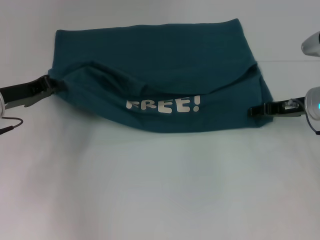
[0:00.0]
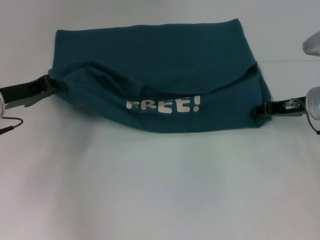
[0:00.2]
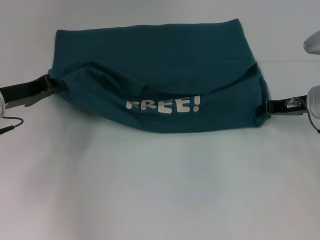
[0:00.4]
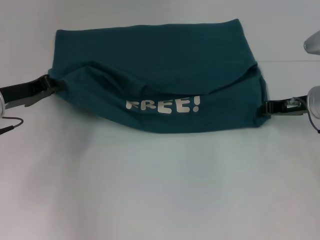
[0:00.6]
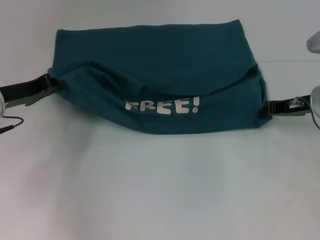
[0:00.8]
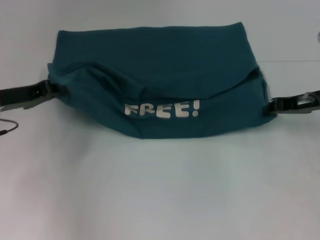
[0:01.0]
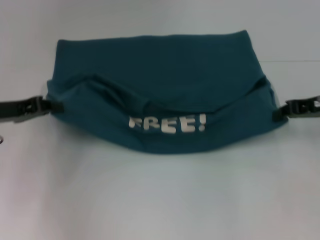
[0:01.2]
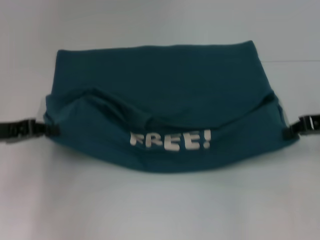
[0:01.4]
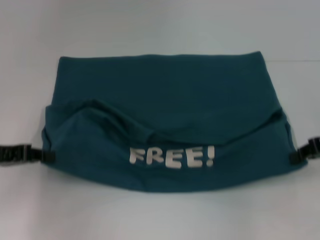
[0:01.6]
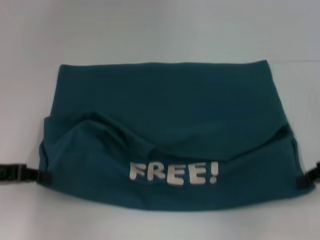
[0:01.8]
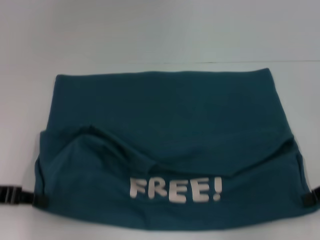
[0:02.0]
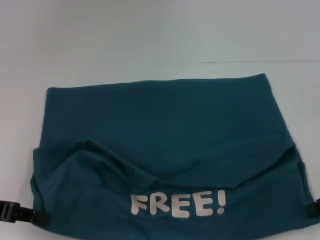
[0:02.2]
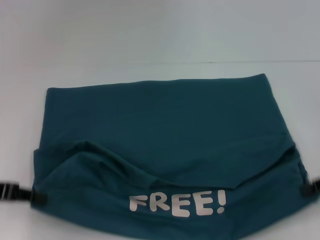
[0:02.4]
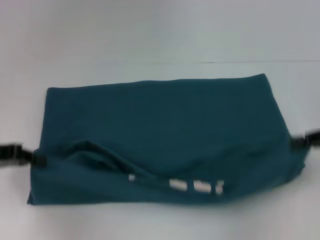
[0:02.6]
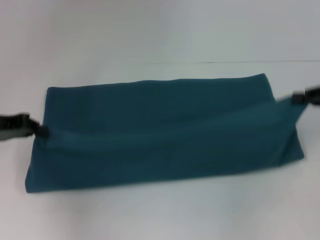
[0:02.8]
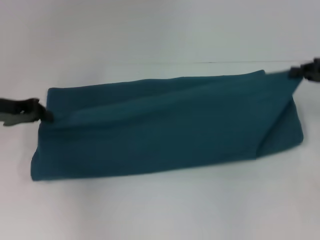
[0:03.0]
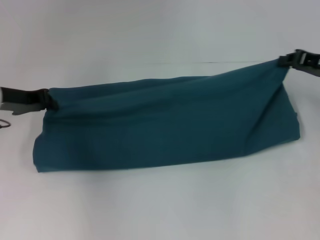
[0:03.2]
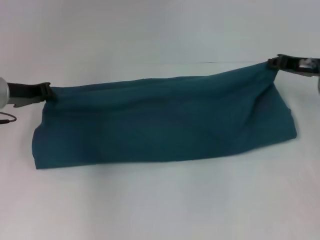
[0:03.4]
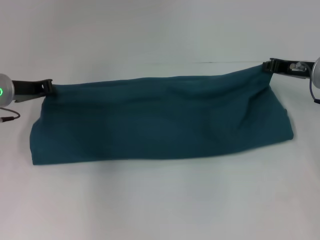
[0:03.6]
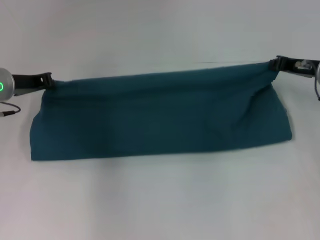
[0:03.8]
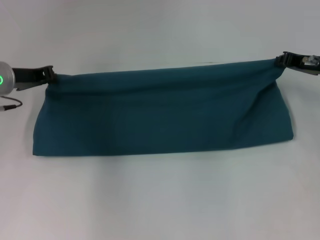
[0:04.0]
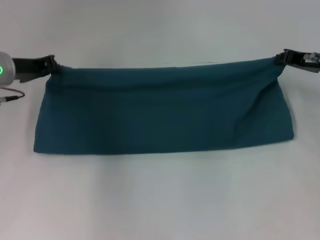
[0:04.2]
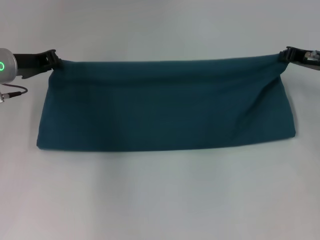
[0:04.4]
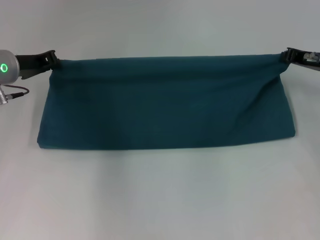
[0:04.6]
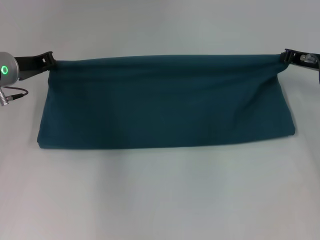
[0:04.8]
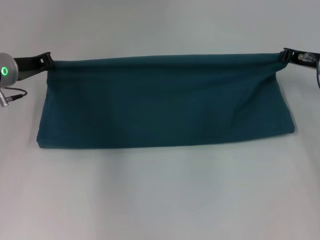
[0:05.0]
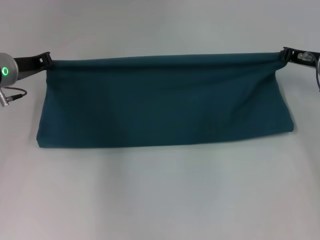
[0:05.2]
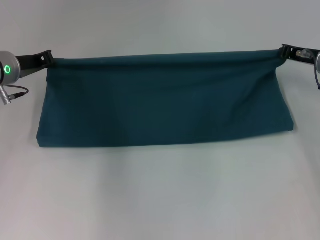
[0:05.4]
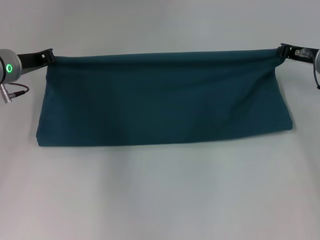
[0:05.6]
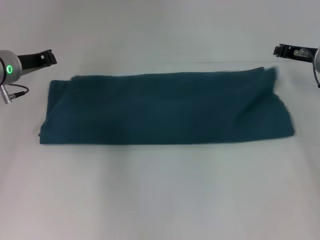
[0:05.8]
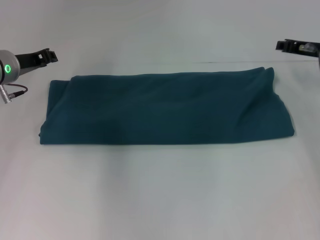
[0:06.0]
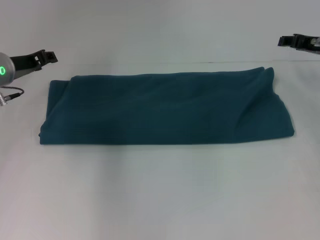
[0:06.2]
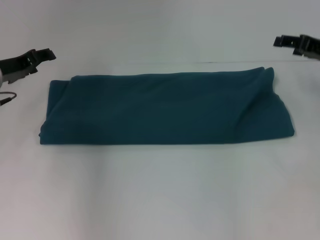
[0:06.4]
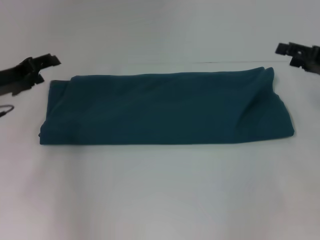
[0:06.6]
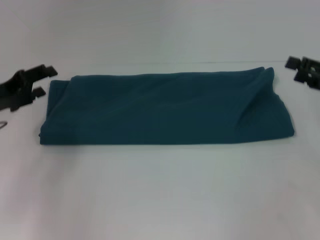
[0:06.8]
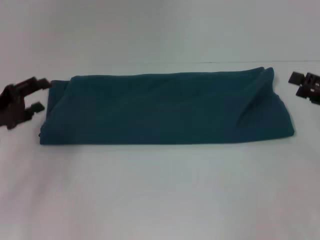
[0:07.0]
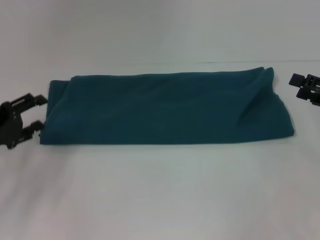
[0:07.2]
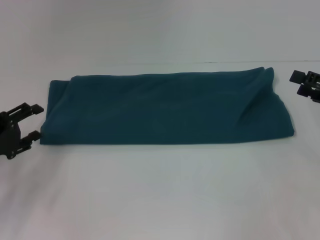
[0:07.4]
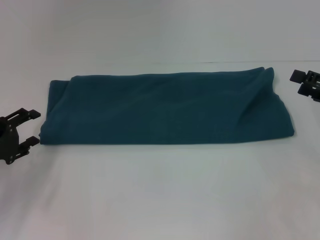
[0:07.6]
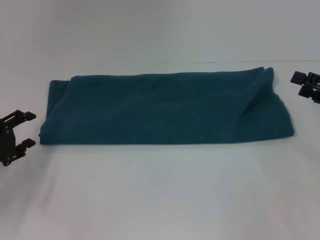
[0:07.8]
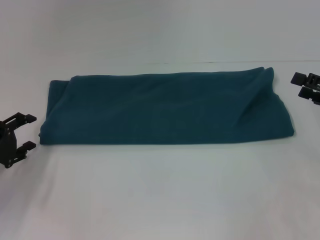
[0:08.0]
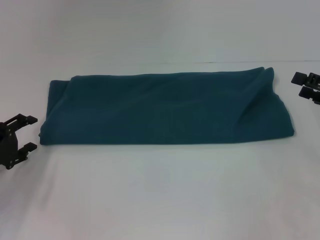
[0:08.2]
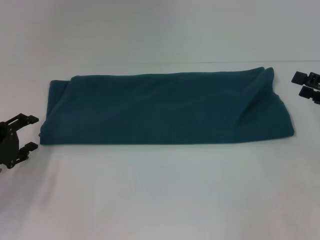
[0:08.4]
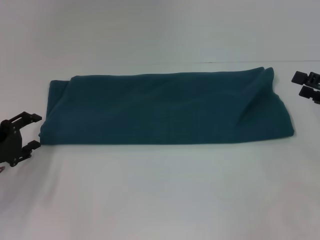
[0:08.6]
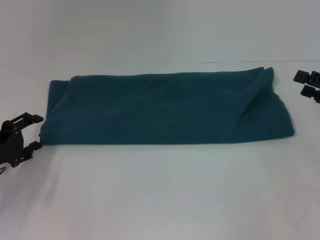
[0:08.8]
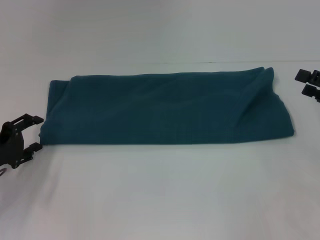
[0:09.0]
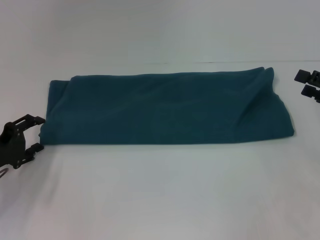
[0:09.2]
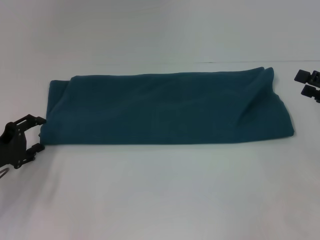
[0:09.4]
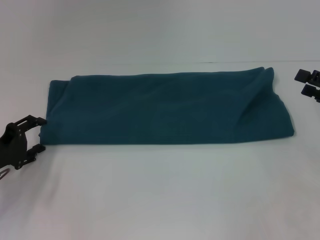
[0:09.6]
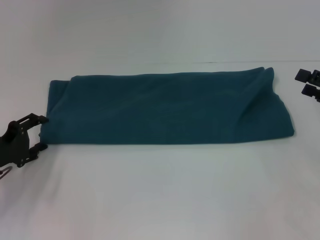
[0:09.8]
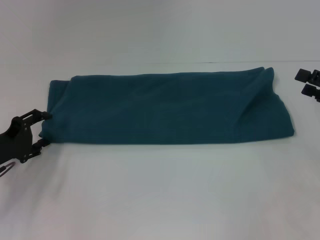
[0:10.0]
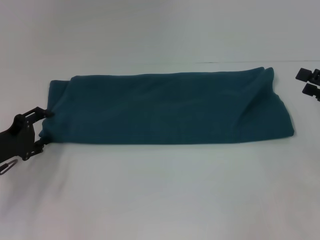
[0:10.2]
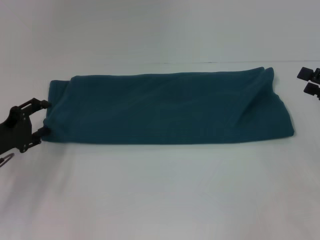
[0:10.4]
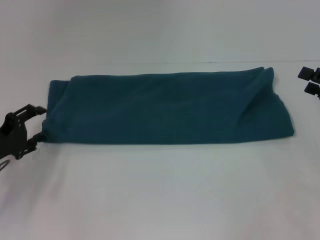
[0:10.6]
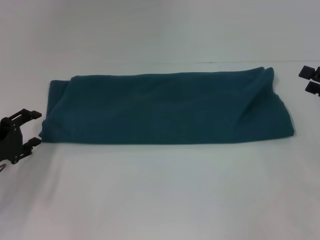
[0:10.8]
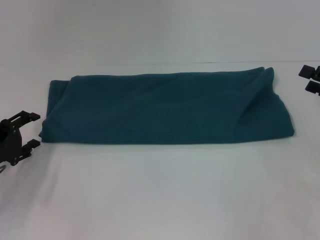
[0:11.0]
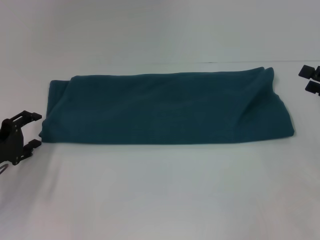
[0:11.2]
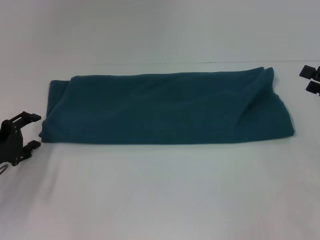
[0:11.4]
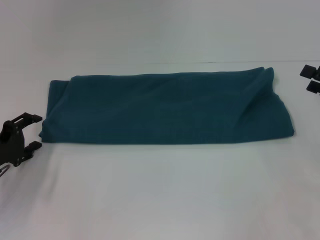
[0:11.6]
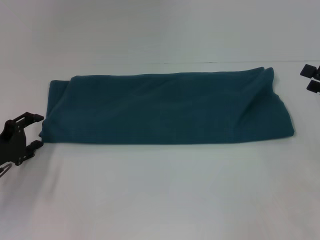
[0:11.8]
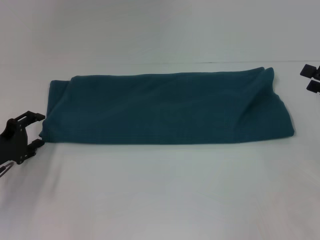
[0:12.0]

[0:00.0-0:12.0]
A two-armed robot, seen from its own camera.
Step, 0:00.0 to 0:02.0: Pull the clothes with your left hand.
Step, 0:00.0 to 0:02.0: Pull the clothes with your right hand.
Step, 0:02.2 to 0:06.0: Fold the clothes to the right.
0:00.0 to 0:01.6: The right gripper is displaced backward and to the right by roughly 10 cm, and closes up. Meanwhile the left gripper is displaced backward by roughly 10 cm.
0:01.6 to 0:03.0: The left gripper heads forward, covering about 5 cm.
0:03.0 to 0:04.4: Both grippers move forward, approximately 5 cm.
0:04.4 to 0:06.0: The grippers make only small movements.
0:06.0 to 0:07.6: The right gripper shifts about 15 cm backward and to the right, and opens its fingers; the left gripper is displaced backward, downward and to the left by about 20 cm, and opens.
0:07.6 to 0:12.0: The grippers stay close to where they were, moving slightly.

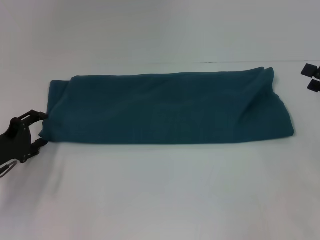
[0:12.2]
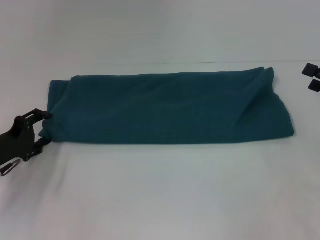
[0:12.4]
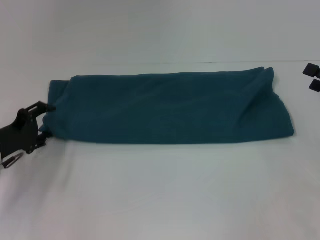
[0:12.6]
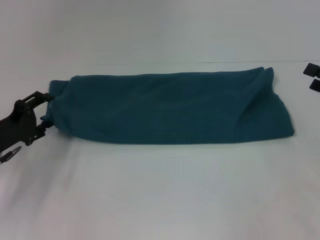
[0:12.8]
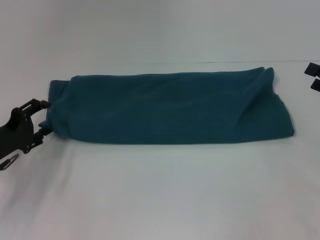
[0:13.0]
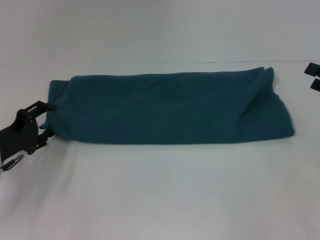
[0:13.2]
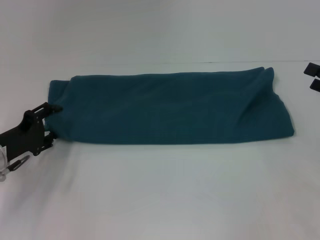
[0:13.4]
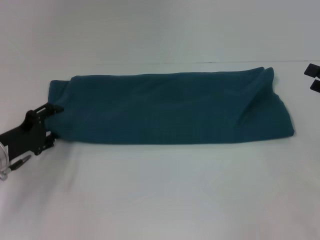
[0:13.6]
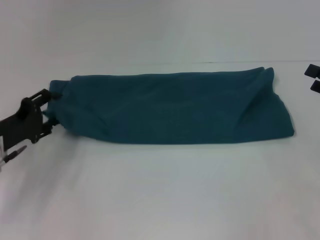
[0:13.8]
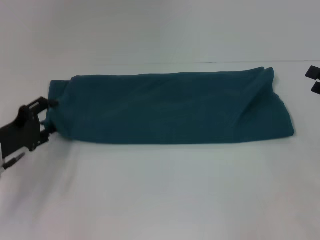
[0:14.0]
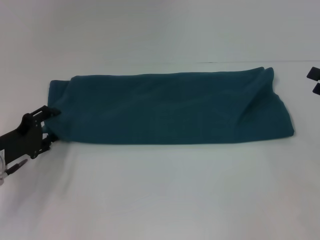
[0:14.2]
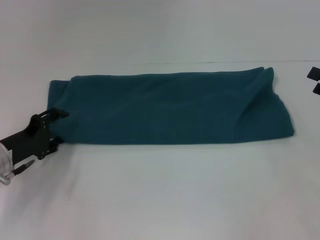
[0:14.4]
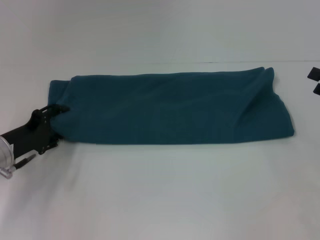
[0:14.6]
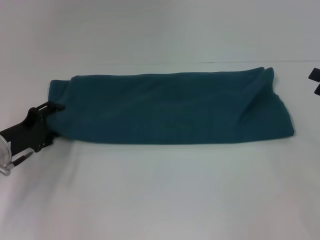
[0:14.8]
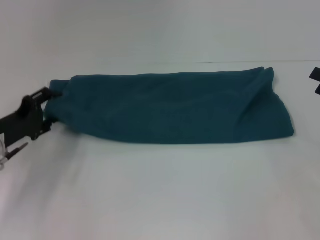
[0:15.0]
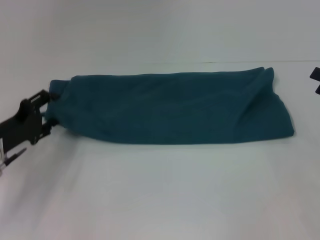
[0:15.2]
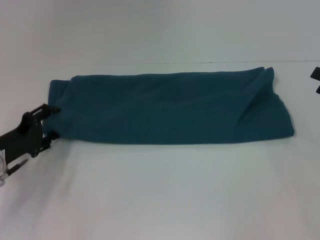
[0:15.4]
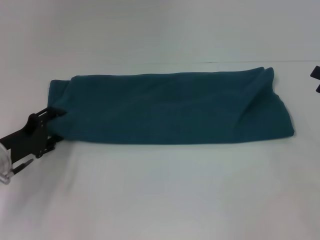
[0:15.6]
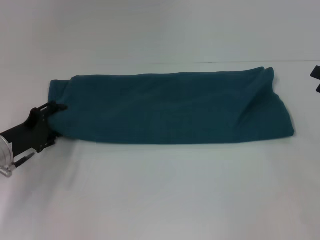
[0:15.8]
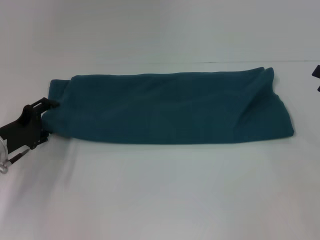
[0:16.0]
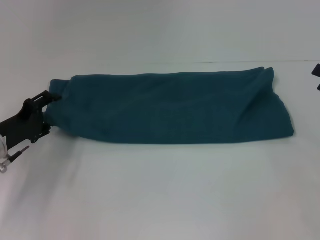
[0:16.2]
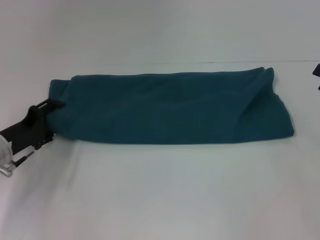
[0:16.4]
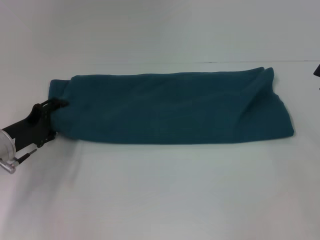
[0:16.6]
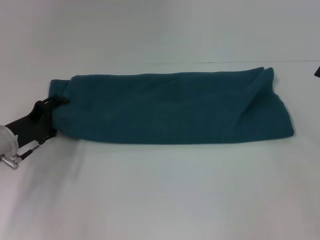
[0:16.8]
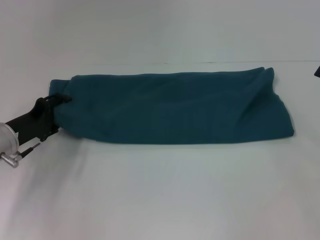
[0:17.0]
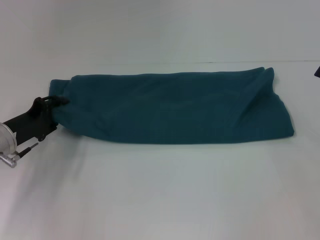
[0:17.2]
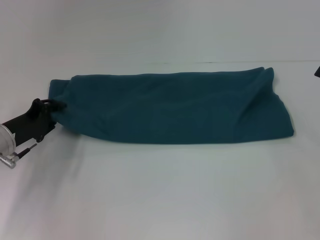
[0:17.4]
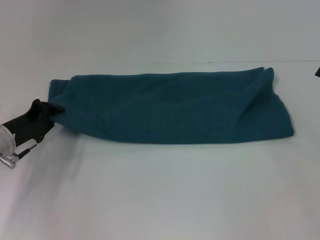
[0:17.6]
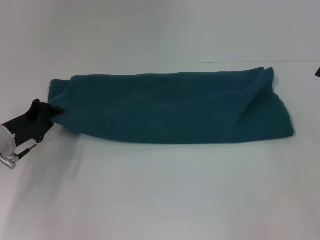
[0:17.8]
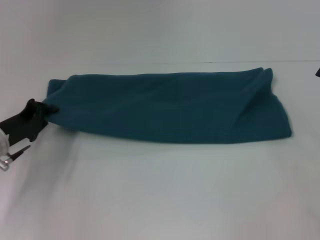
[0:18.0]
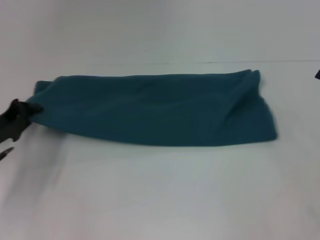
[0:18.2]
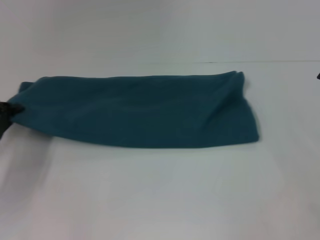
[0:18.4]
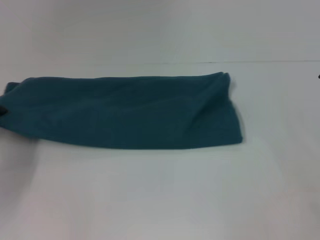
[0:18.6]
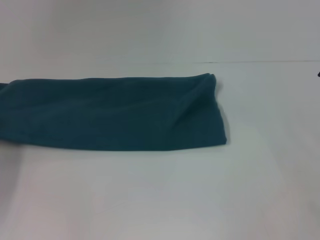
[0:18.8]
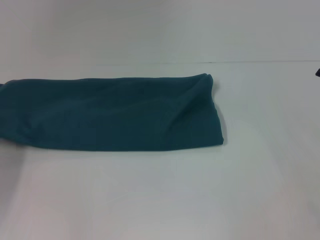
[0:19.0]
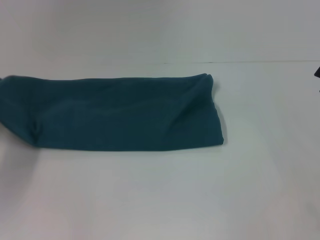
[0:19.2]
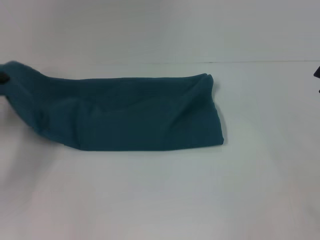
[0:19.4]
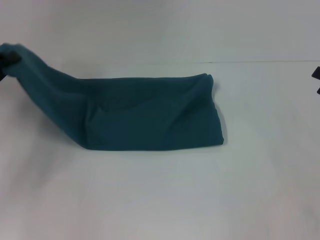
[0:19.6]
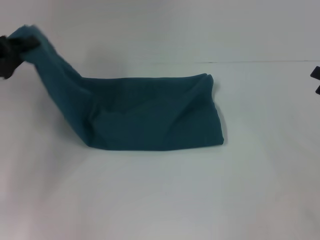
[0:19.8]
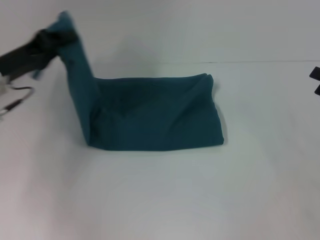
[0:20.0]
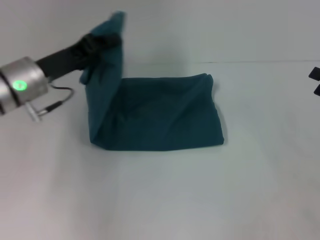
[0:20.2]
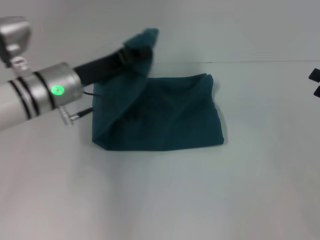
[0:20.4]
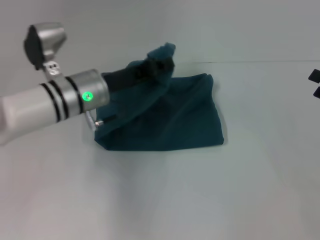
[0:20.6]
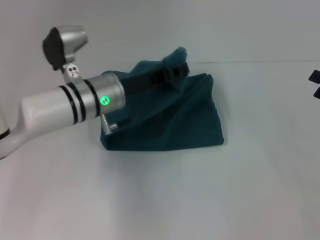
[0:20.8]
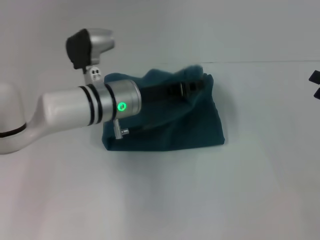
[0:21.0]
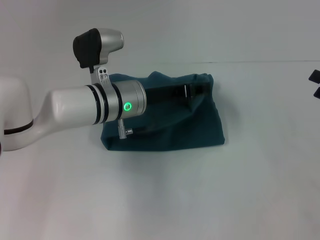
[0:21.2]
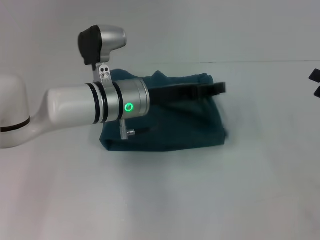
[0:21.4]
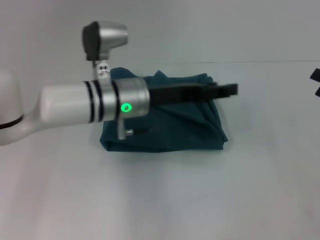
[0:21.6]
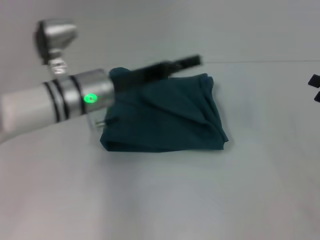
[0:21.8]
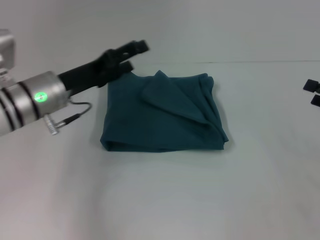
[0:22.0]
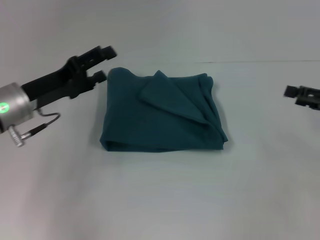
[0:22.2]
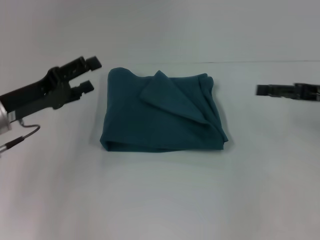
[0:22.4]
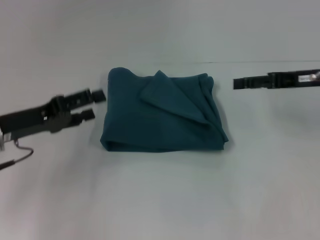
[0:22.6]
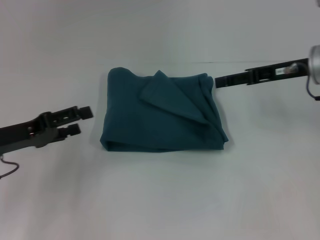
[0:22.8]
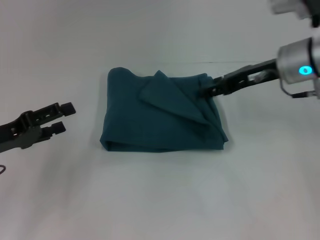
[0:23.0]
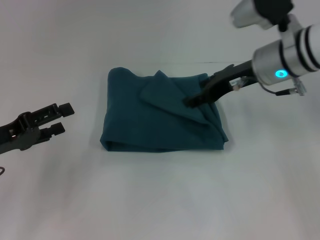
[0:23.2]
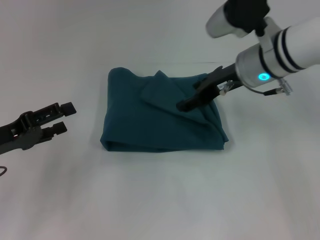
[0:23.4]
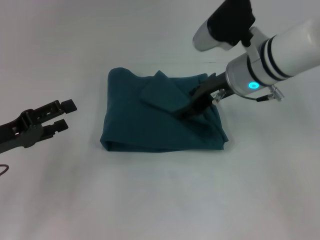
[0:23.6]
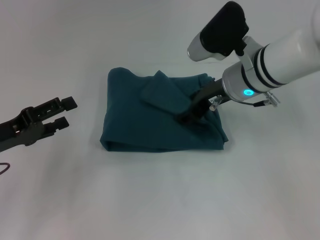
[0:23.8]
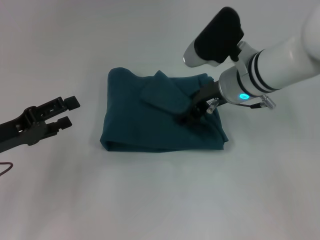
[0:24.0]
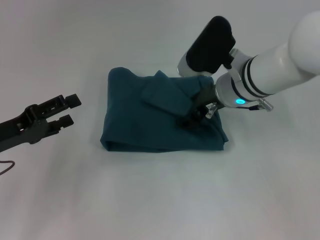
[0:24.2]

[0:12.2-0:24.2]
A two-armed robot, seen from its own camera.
Step, 0:12.2 to 0:21.4: Fold the clothes to the left.
0:12.2 to 0:16.6: The grippers move only a little.
0:16.6 to 0:18.2: The left gripper closes its fingers.
0:18.2 to 0:19.8: The left gripper shifts some 10 cm upward.
0:19.8 to 0:21.2: The left gripper is displaced to the right by approximately 25 cm.
0:21.2 to 0:22.6: The left gripper heads to the left and backward, covering approximately 20 cm, and opens up; the right gripper is displaced to the left, forward and upward by about 15 cm.
0:22.6 to 0:24.2: The right gripper moves to the left, roughly 15 cm.
